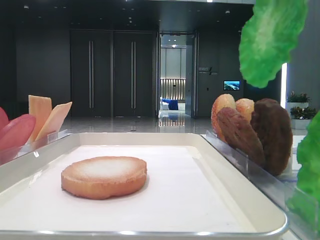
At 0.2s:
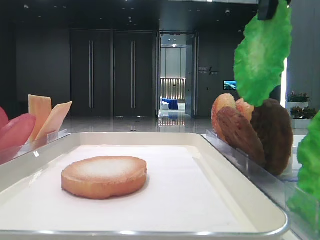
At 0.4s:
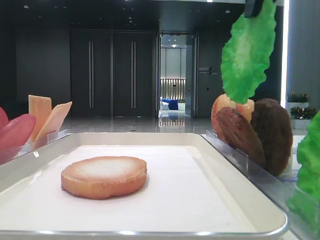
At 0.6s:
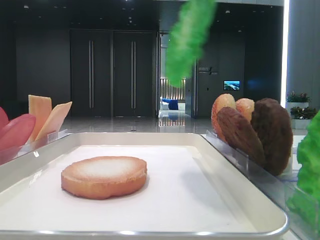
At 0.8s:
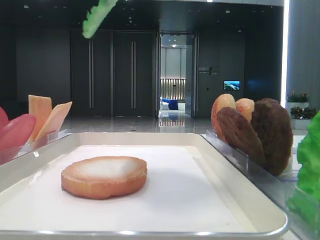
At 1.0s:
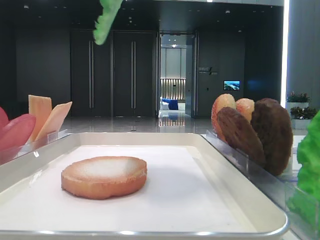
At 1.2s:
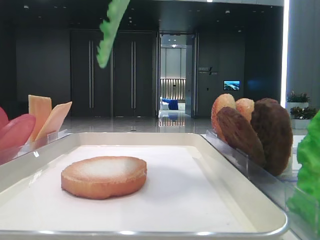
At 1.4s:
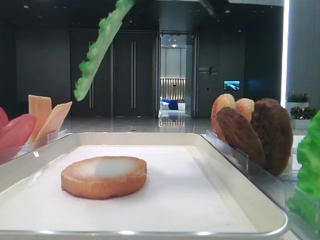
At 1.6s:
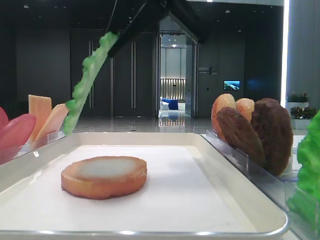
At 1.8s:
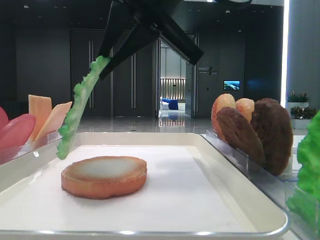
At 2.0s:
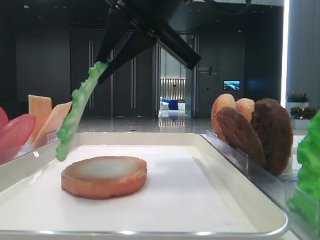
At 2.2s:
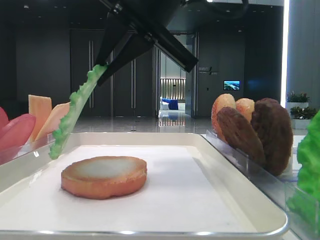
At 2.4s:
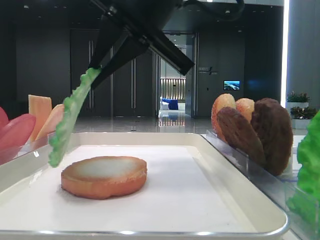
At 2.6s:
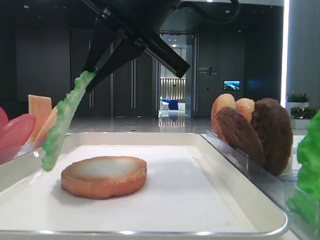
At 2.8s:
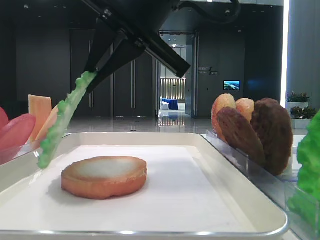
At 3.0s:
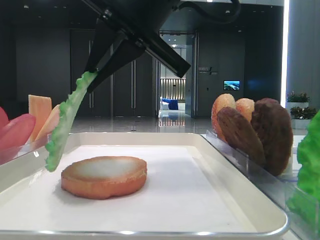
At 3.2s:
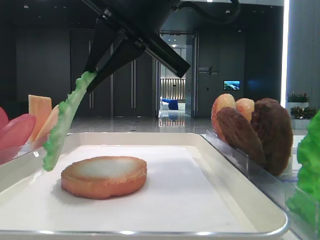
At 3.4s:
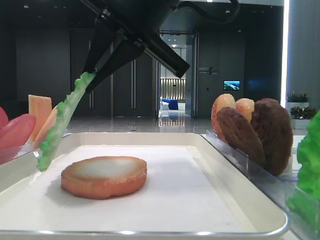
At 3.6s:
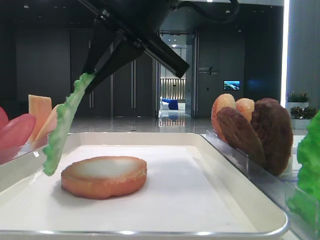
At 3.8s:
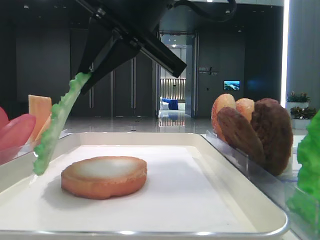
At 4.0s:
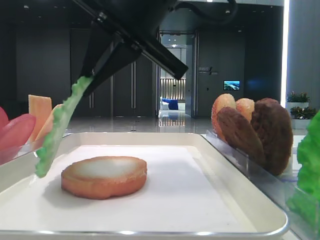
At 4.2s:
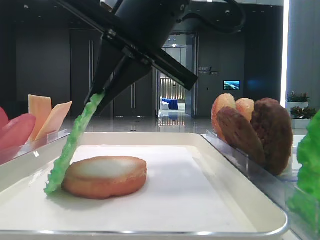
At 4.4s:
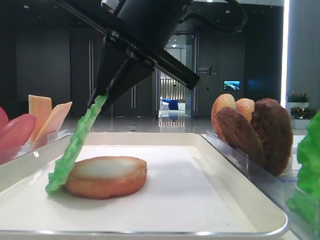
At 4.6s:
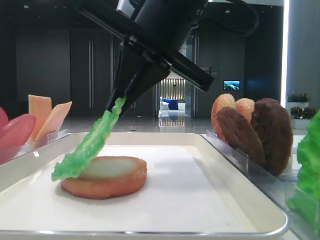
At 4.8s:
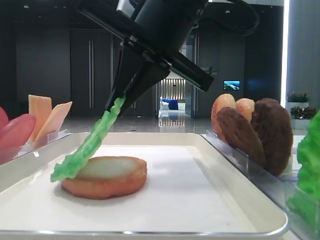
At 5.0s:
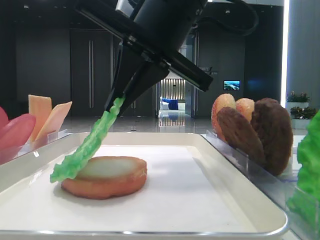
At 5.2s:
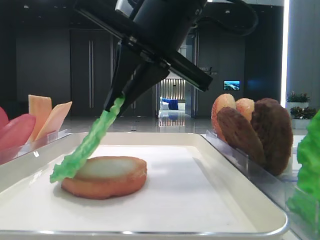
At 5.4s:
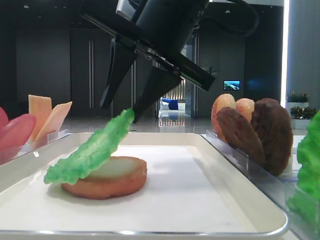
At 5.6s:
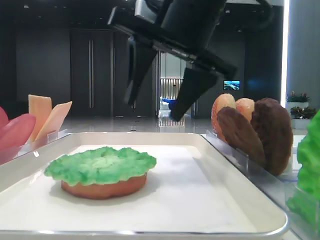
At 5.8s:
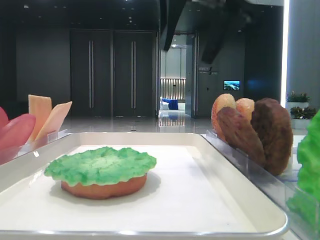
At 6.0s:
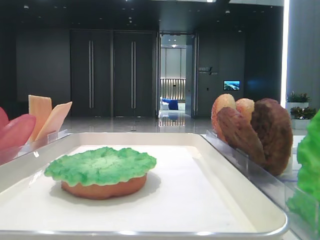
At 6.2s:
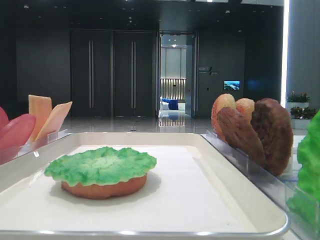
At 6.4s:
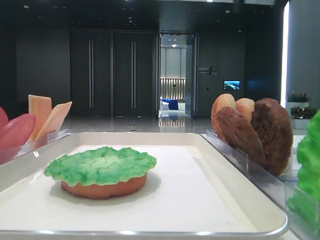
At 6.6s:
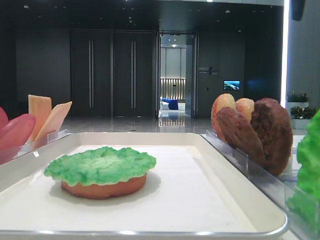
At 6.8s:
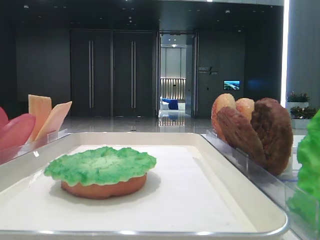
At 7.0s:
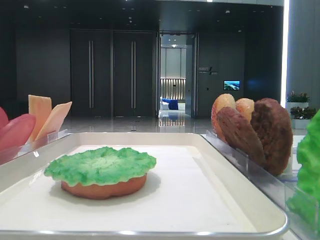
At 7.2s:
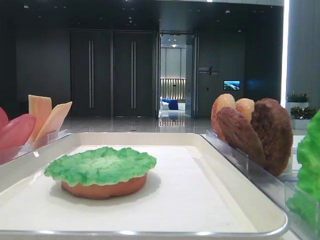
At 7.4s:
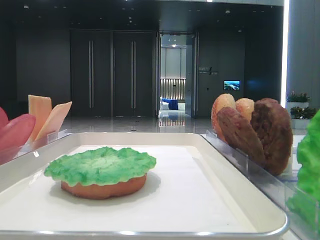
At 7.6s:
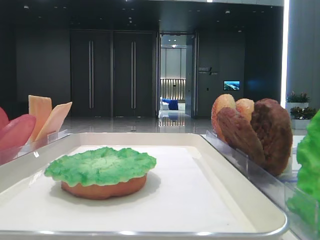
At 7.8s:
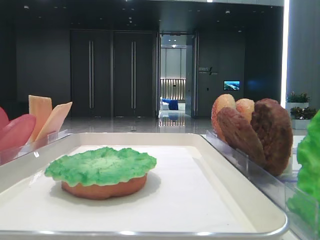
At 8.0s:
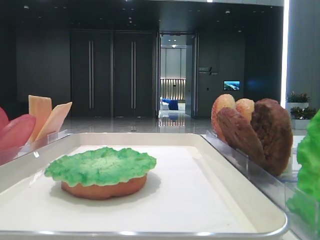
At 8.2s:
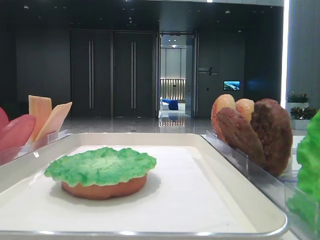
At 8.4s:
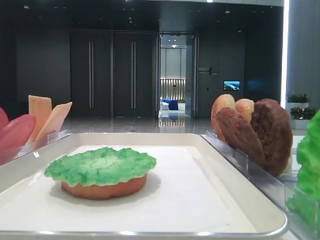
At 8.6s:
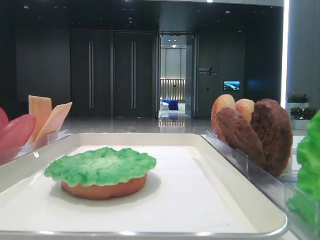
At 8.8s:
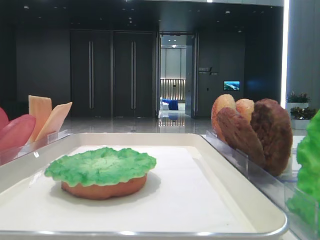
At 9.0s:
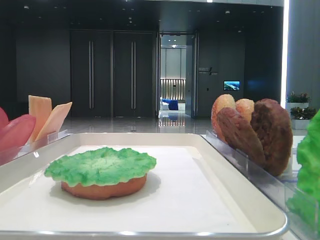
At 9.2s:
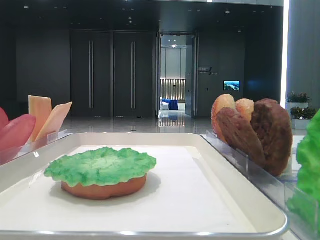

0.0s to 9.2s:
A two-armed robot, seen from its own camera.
Step, 0.0s to 5.4s: Place the lettuce leaf on the bottom bread with the right hand.
0.0s to 1.6s: The right gripper travels to the left, downward and forward by some 15 cm.
1.6s to 4.6s: There are only small adjustments of the grippers.
4.6s to 6.2s: The right gripper heads upward and to the right, covering about 15 cm, and opens its fingers.

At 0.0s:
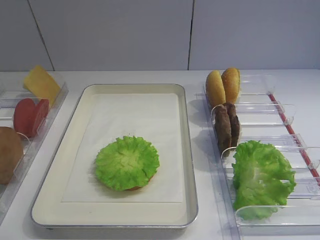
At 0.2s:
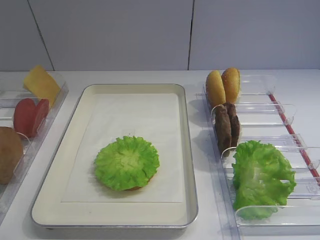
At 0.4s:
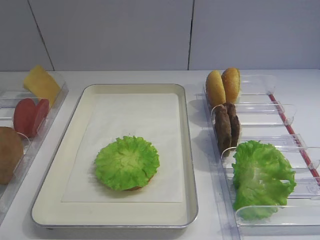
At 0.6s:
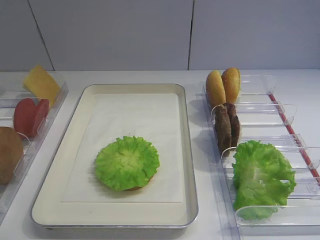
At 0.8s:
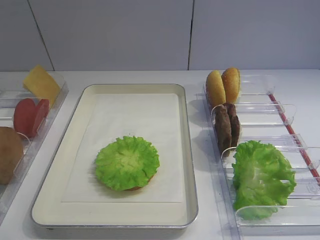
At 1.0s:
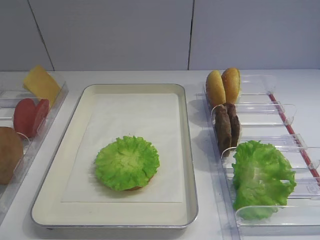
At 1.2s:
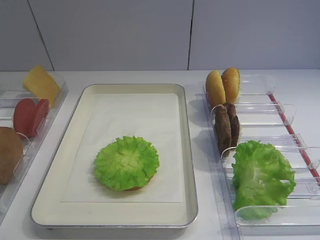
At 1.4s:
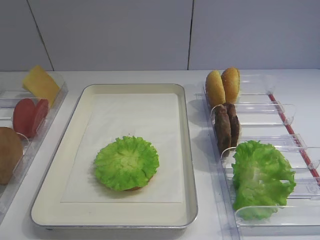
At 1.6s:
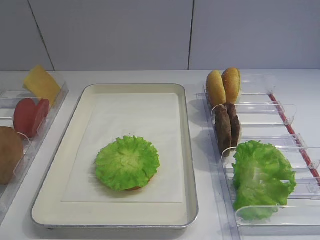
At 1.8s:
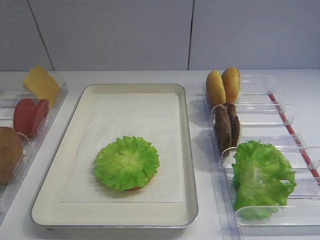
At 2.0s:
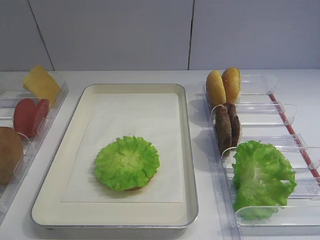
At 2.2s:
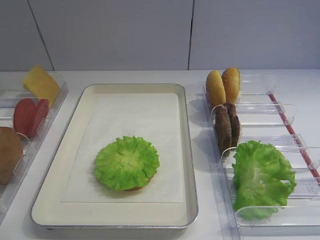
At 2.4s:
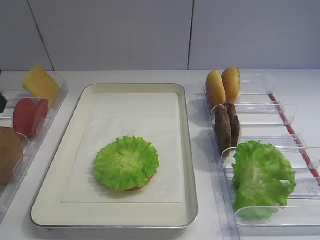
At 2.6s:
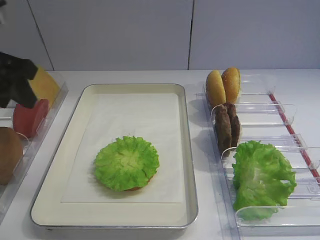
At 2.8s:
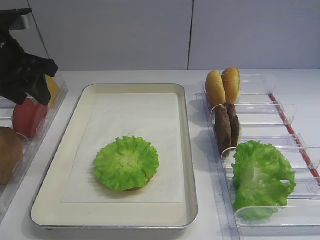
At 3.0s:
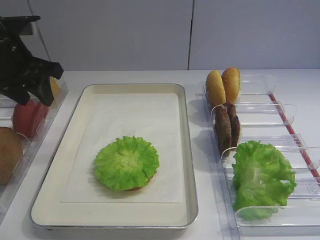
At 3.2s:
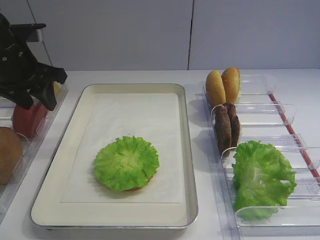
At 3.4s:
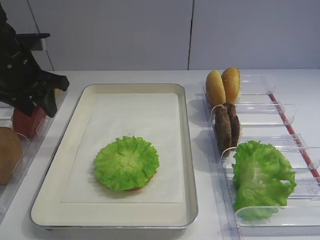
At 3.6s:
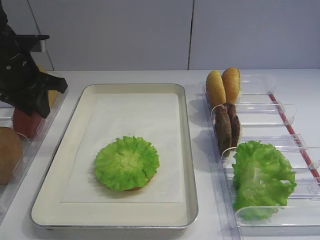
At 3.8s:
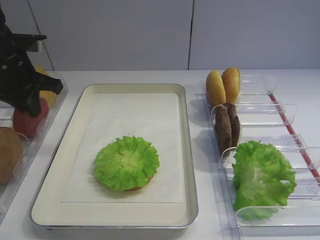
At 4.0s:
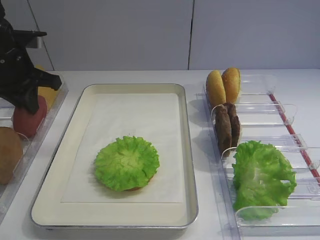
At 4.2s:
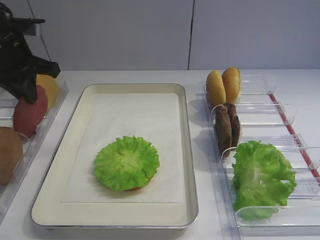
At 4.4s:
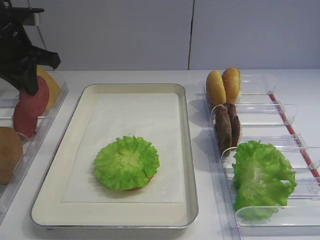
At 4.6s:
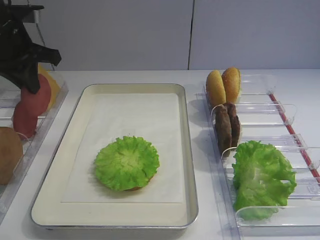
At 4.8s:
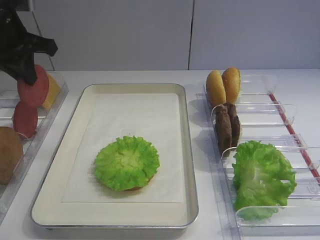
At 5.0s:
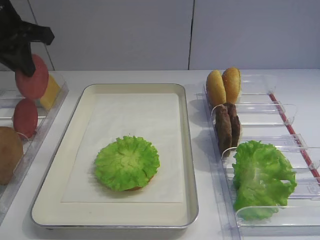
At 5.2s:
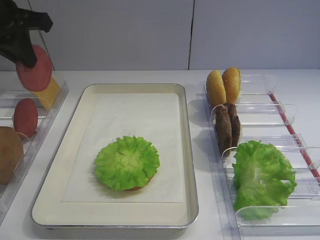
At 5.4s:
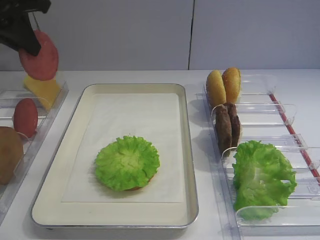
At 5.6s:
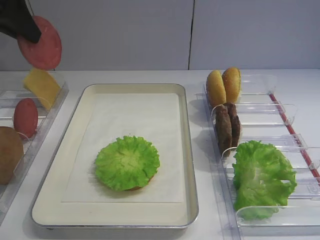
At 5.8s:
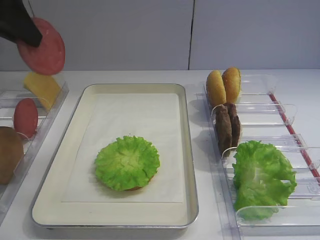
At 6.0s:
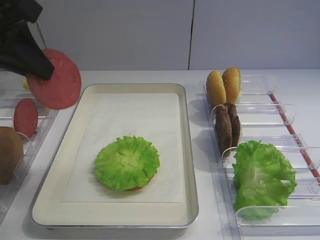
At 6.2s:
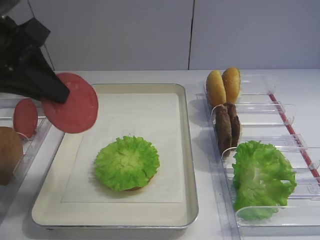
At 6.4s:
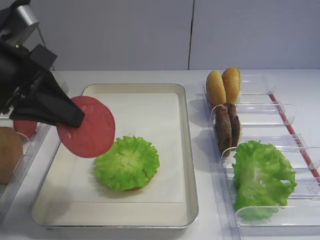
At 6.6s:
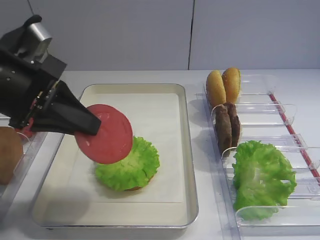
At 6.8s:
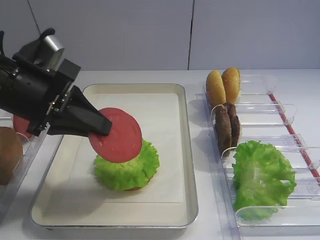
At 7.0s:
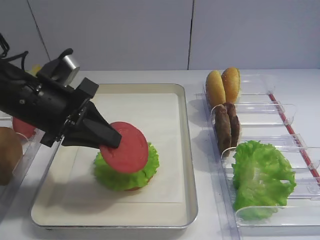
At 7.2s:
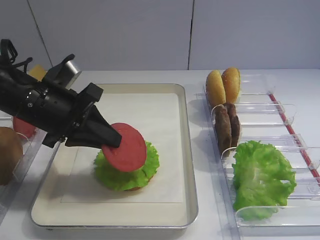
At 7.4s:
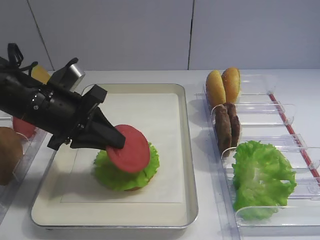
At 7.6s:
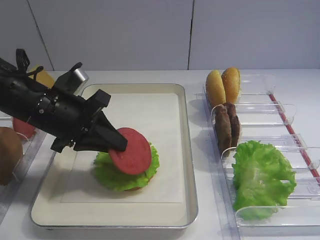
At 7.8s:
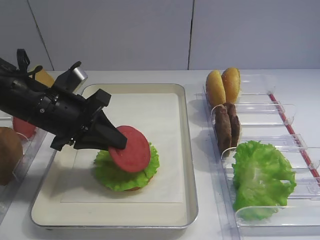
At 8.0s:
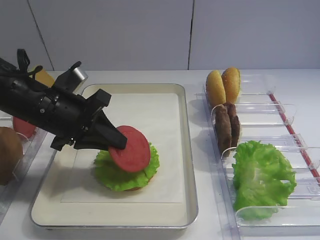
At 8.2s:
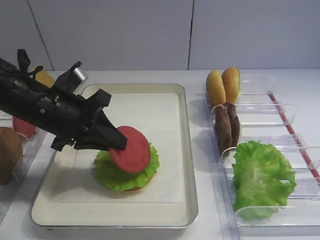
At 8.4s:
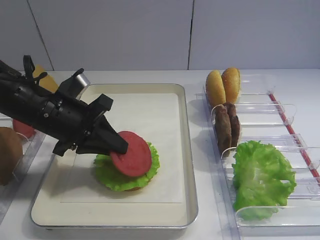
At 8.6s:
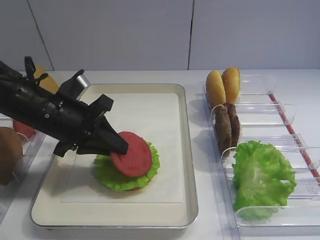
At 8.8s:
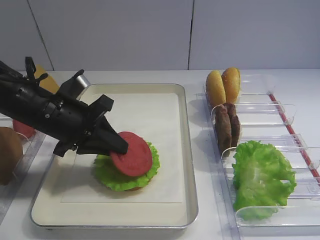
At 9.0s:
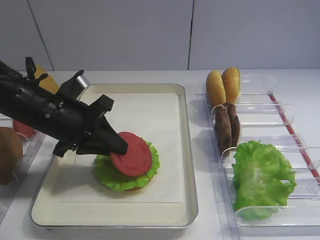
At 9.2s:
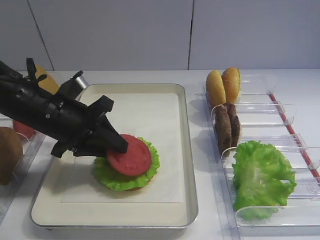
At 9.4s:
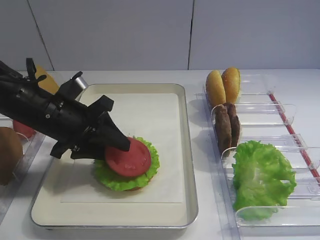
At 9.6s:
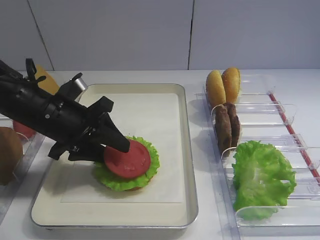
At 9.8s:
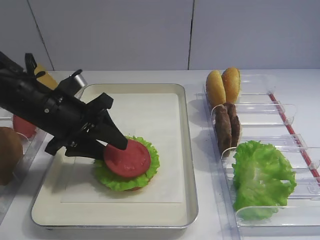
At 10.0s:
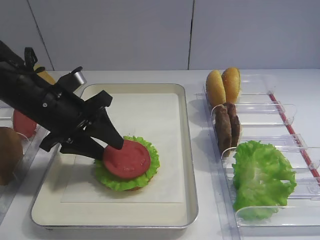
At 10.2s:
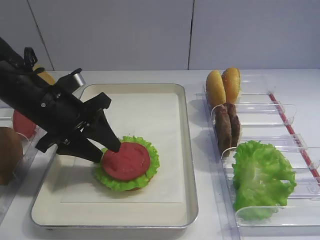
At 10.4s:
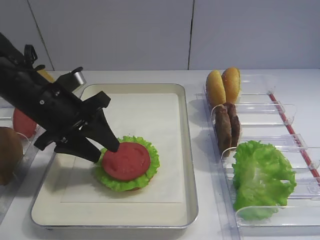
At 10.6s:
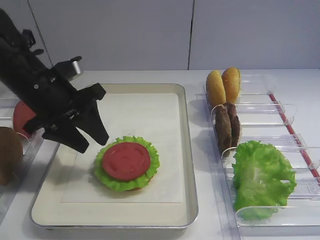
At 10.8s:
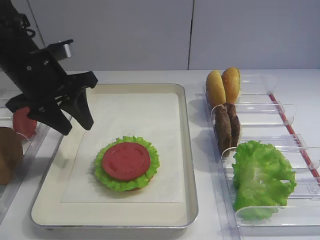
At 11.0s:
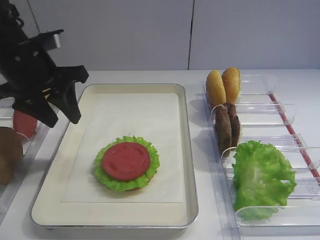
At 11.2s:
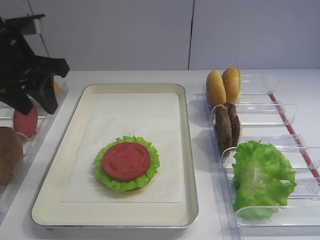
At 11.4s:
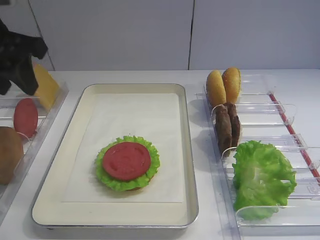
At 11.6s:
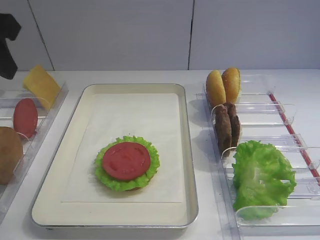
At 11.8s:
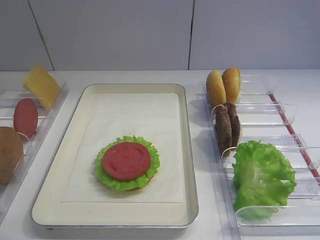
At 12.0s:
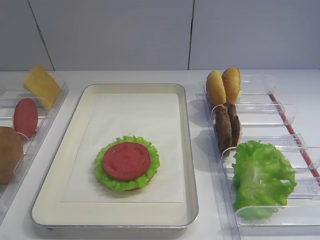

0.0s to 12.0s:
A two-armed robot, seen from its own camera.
Step, 0.0s to 4.0s: Pick up the tomato slice with the left gripper.
Step, 4.2s to 10.4s: Place the tomato slice on the lettuce leaf with the left gripper.
1.6s to 3.0s: The left gripper shifts roughly 35 cm forward, and opens its fingers.
3.0s to 4.4s: The left gripper closes its fingers.
4.4s to 6.0s: The left gripper shifts approximately 15 cm backward and upward.
6.0s to 7.6s: The left gripper is displaced downward by some 15 cm.
7.6s to 9.0s: There are only small adjustments of the grippers.
9.0s to 10.4s: The left gripper opens. Meanwhile the right gripper closes up.
10.4s to 12.0s: The left gripper travels upward, backward and to the left by approximately 25 cm.

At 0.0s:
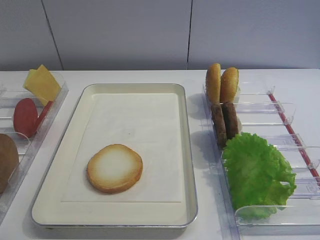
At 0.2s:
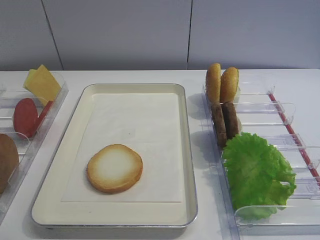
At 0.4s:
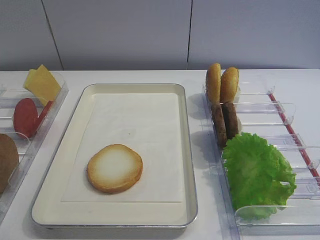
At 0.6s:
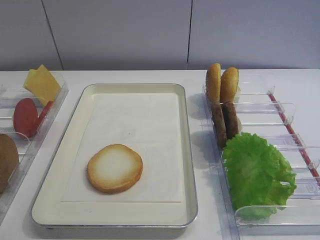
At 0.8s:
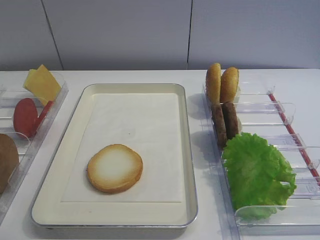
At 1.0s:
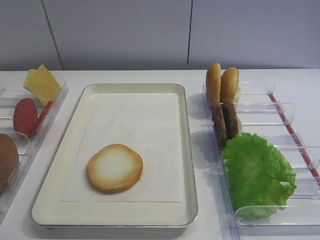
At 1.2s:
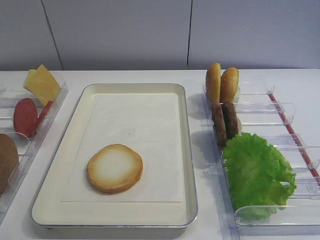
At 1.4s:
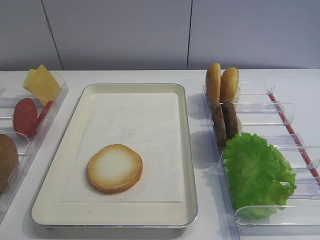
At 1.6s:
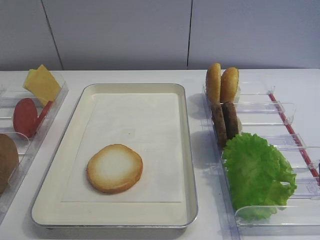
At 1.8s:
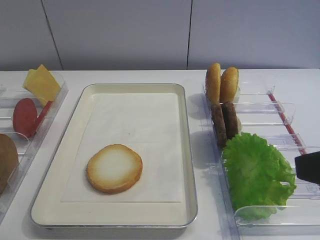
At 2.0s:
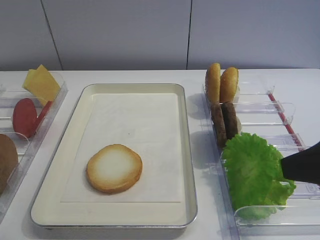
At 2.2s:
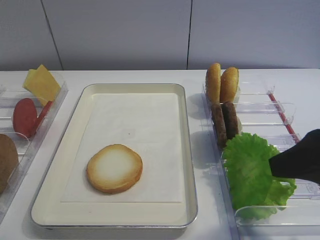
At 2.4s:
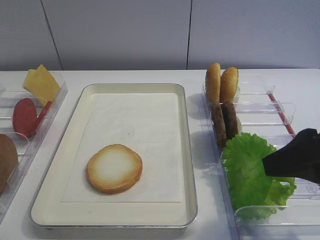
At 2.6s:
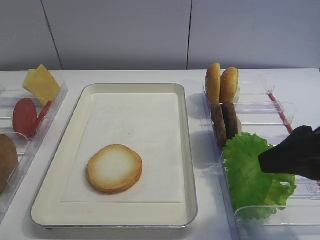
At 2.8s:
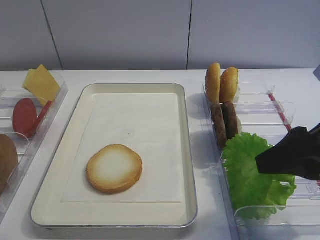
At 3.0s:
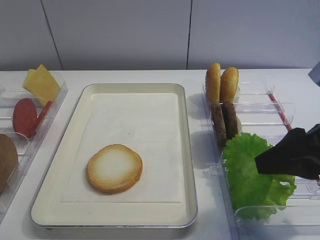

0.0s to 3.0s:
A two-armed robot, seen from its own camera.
1.6s to 3.0s: The right gripper shifts roughly 10 cm forward and downward.
